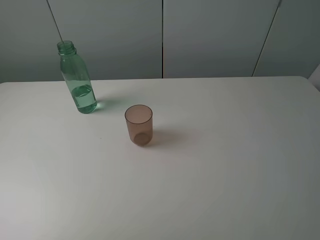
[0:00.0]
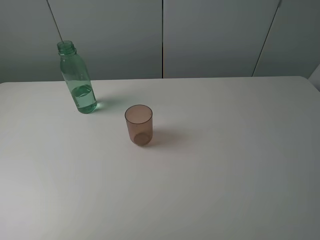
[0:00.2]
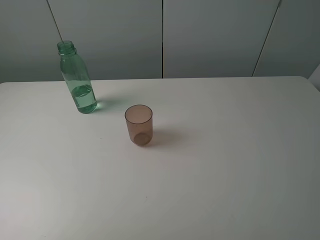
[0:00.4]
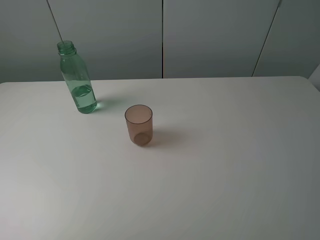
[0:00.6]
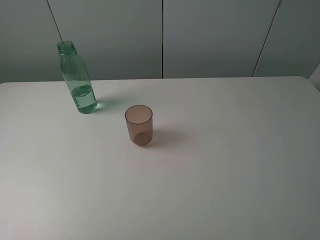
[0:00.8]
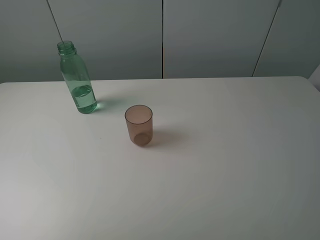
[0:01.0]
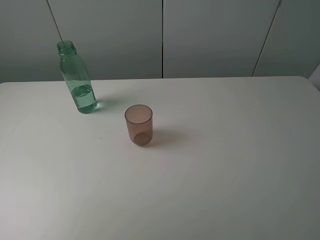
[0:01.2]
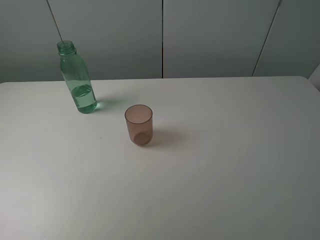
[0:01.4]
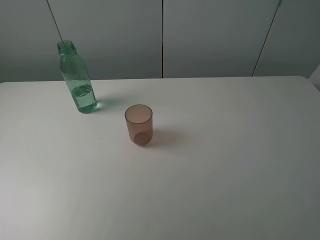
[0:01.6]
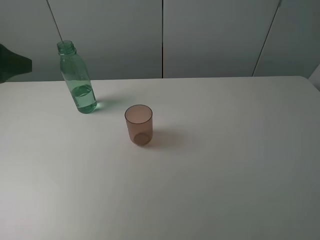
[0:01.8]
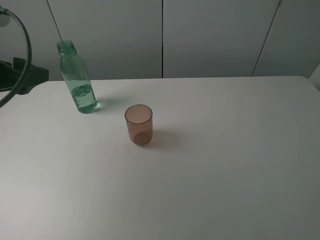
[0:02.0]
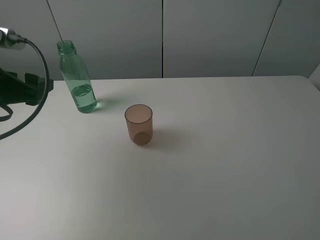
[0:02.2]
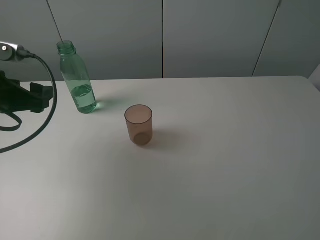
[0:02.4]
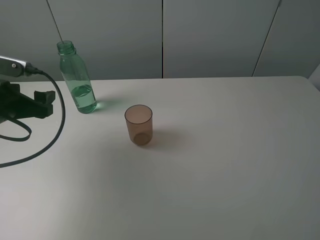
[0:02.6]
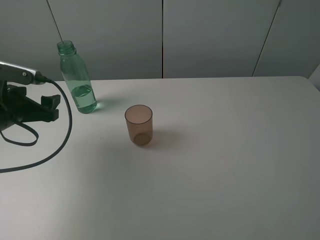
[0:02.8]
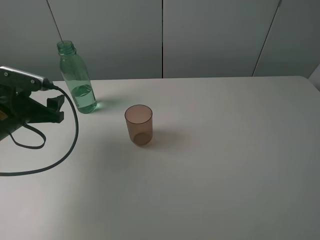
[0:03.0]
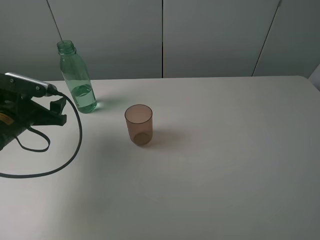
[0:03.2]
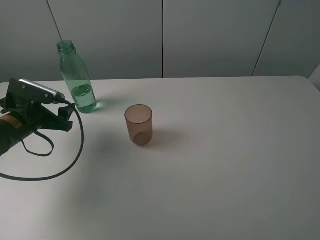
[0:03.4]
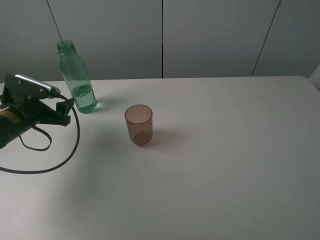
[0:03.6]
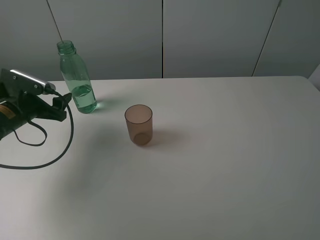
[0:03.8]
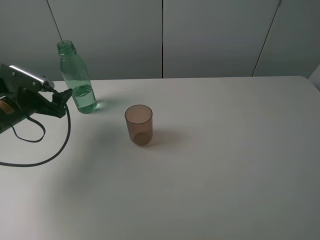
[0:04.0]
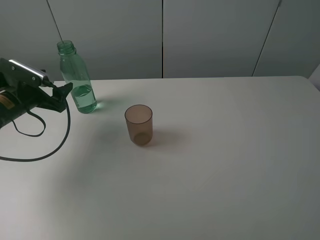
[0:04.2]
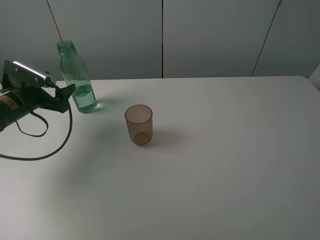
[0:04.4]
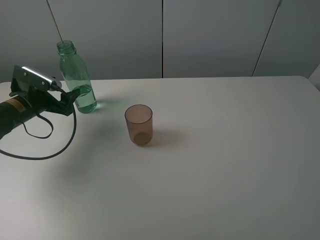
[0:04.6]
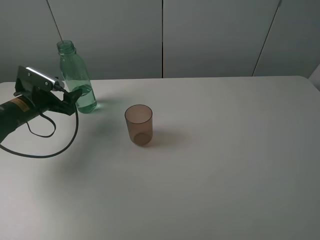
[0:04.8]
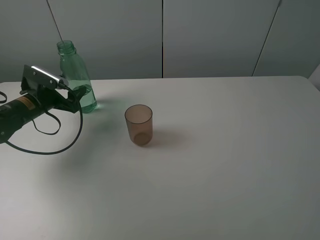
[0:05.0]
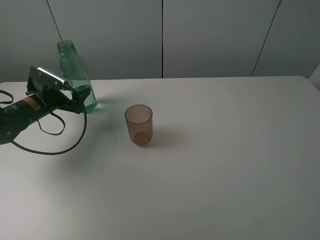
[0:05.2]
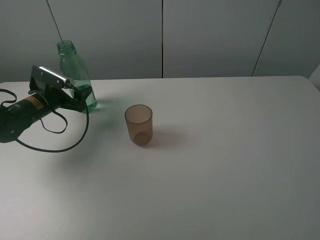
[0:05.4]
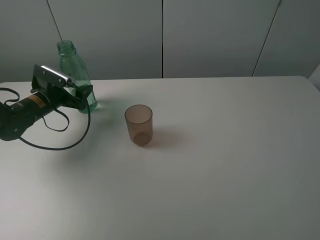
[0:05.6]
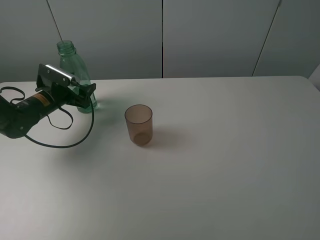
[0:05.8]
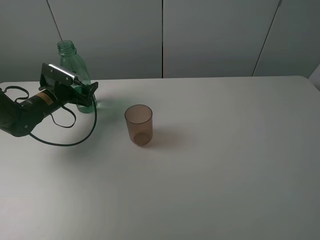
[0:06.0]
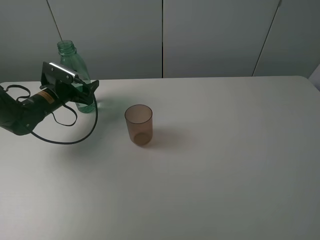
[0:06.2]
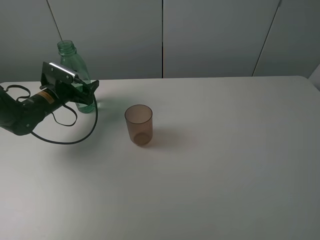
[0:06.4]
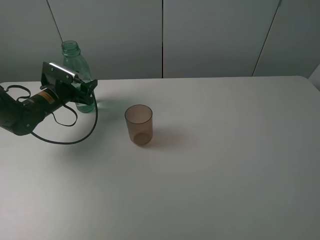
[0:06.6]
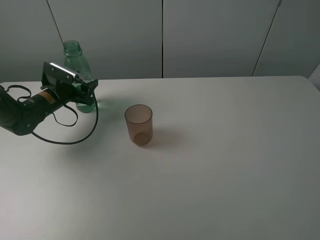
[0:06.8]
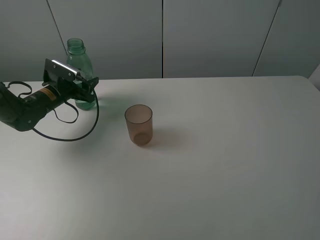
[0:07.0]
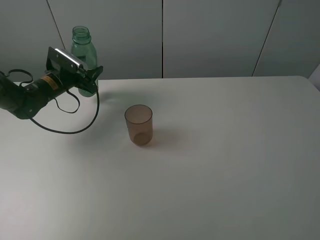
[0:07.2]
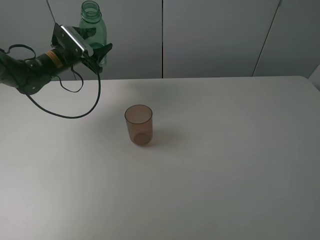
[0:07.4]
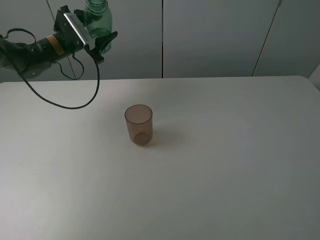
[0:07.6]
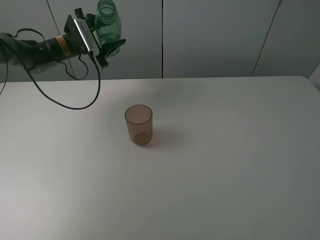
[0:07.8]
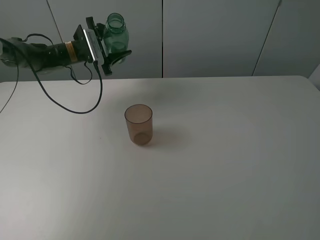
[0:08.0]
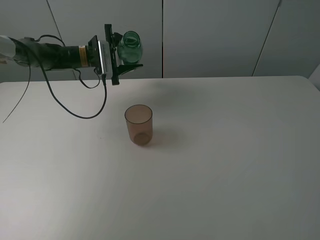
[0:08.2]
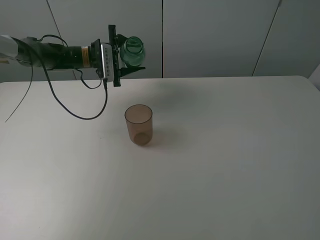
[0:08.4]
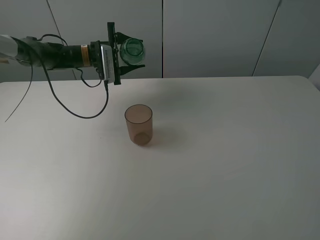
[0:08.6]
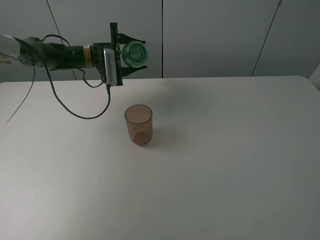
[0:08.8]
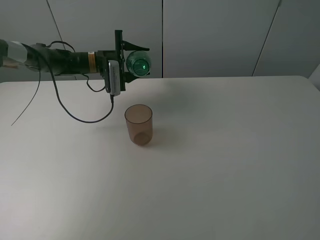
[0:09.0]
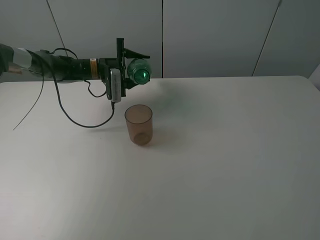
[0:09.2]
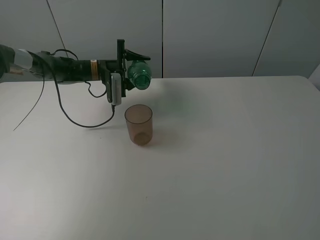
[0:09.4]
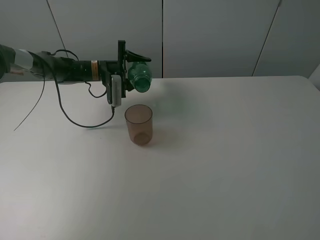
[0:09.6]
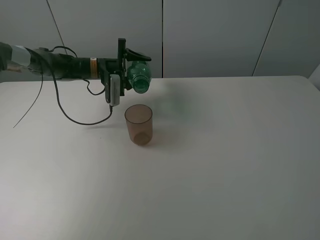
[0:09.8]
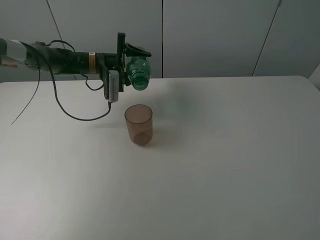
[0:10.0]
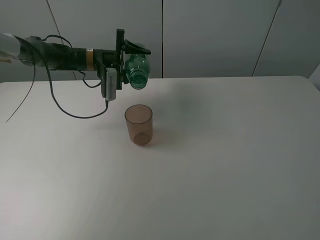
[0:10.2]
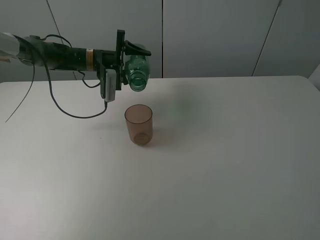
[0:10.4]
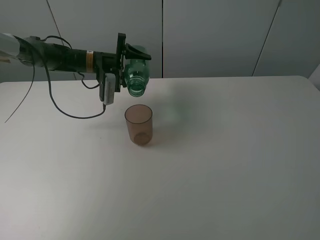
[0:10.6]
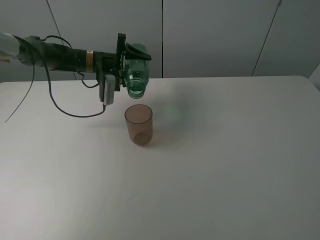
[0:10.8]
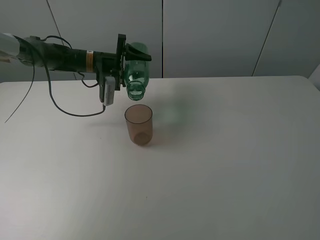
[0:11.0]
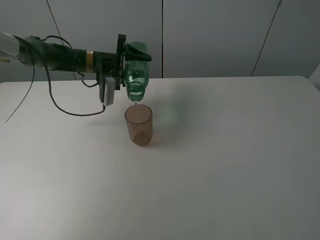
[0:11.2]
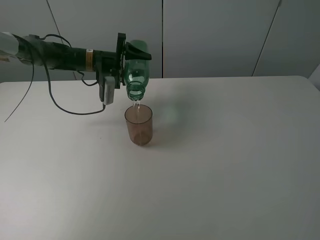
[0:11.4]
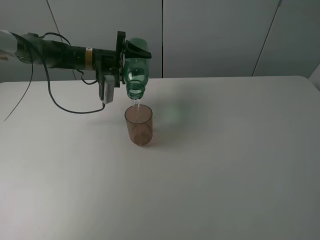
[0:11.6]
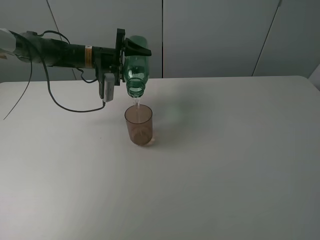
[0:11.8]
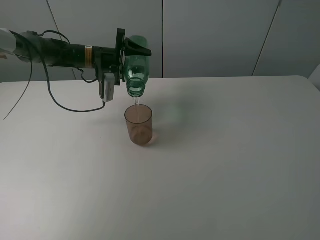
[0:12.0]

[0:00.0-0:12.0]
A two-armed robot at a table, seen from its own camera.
Task of the whole recording: pick up the bottle filled with water and pour it into the pink cup.
Step, 0:00.0 to 0:06.6: Grasp the green bottle with the left gripper.
0:01.6 to 0:03.0: The left gripper goes roughly 20 cm downward and forward.
0:03.0 to 0:04.4: The left gripper shifts some 5 cm forward.
0:04.4 to 0:06.0: The left gripper moves forward, roughly 5 cm.
0:06.0 to 0:07.6: The left gripper heads upward and forward, covering roughly 15 cm, and closes its fingers.
0:07.6 to 0:09.0: The left gripper shifts some 10 cm to the right and downward.
0:09.0 to 0:10.4: The grippers stay close to where they were, moving slightly.
0:10.4 to 0:12.0: The grippers move only a little.

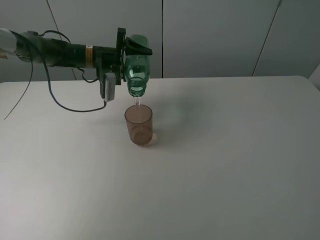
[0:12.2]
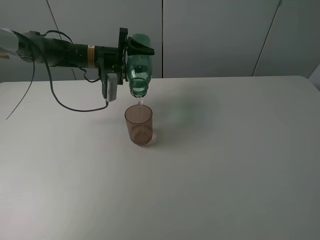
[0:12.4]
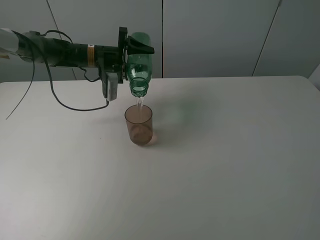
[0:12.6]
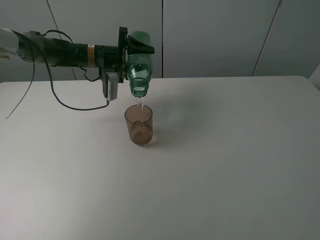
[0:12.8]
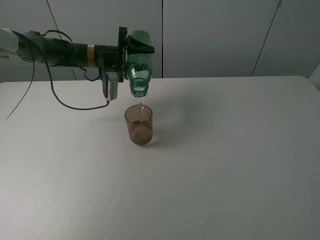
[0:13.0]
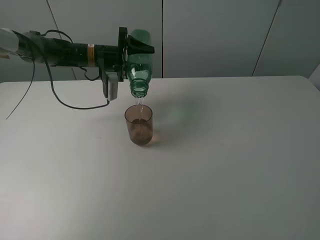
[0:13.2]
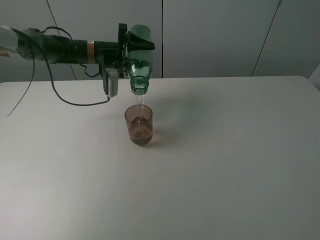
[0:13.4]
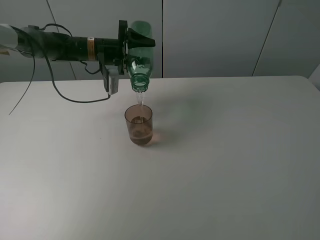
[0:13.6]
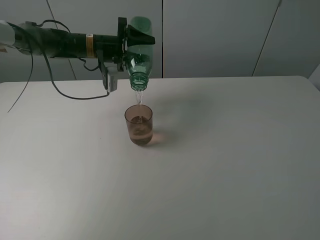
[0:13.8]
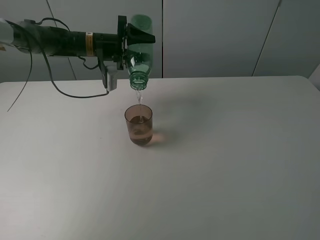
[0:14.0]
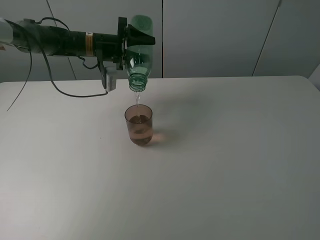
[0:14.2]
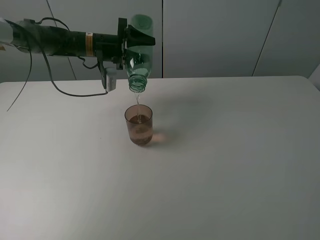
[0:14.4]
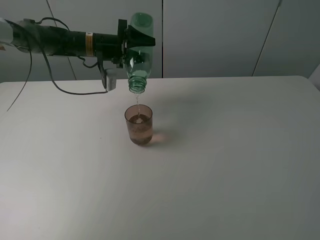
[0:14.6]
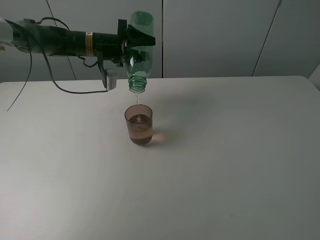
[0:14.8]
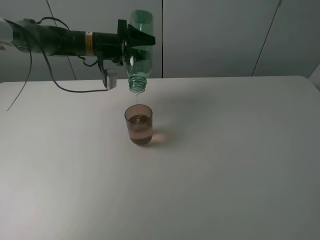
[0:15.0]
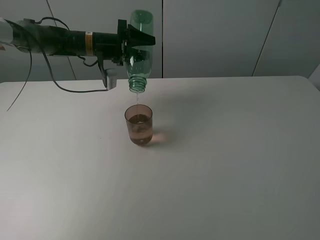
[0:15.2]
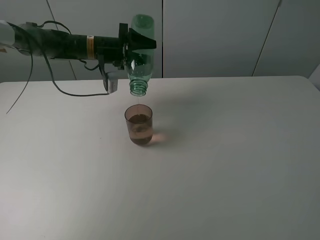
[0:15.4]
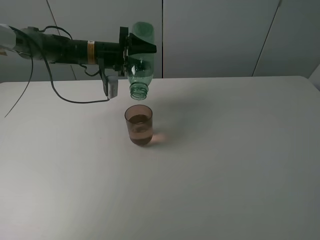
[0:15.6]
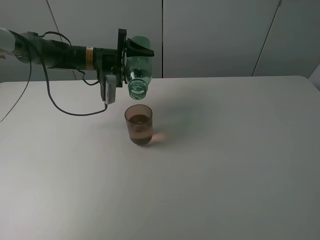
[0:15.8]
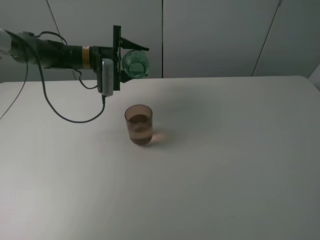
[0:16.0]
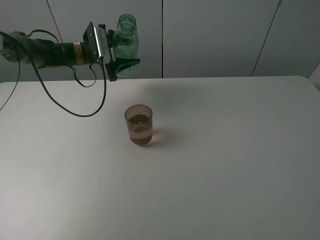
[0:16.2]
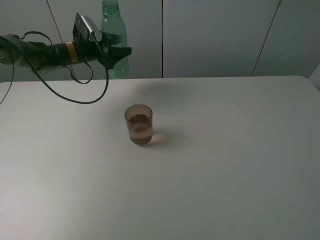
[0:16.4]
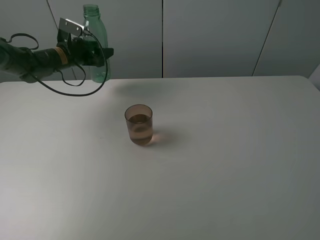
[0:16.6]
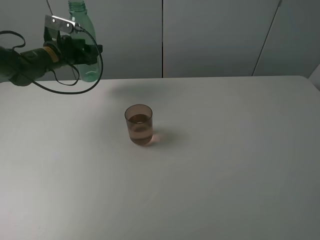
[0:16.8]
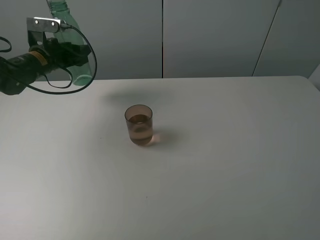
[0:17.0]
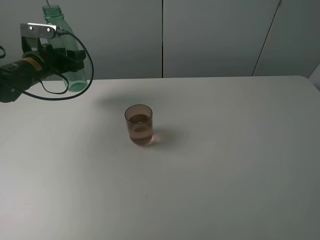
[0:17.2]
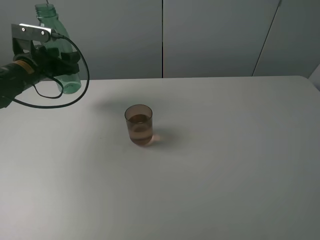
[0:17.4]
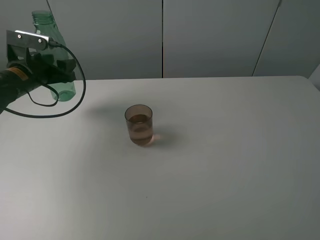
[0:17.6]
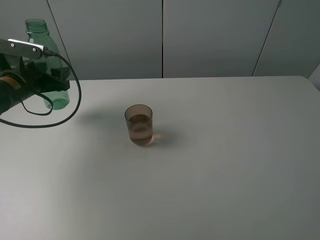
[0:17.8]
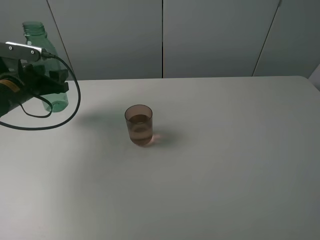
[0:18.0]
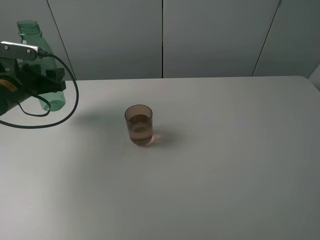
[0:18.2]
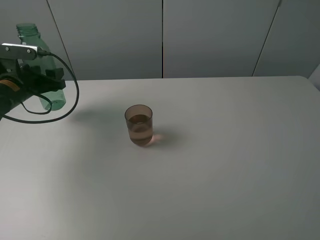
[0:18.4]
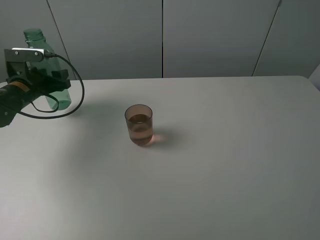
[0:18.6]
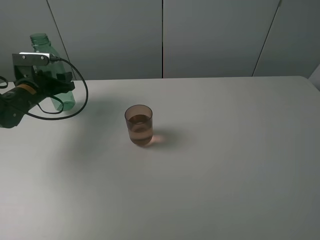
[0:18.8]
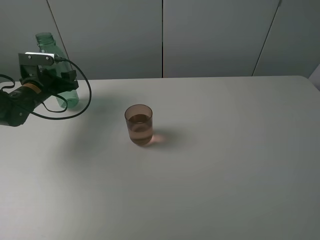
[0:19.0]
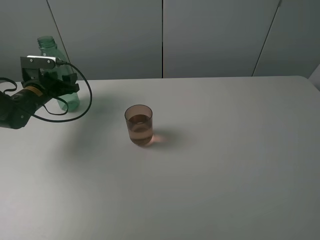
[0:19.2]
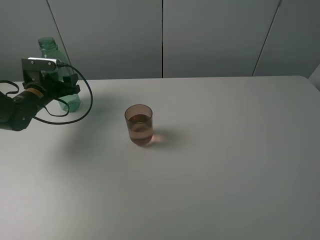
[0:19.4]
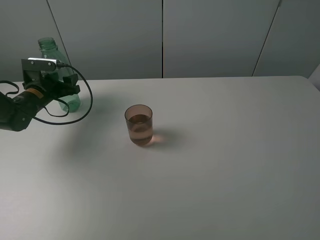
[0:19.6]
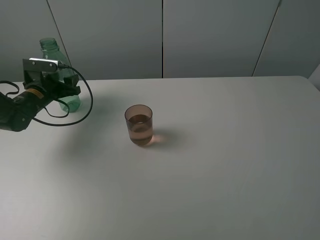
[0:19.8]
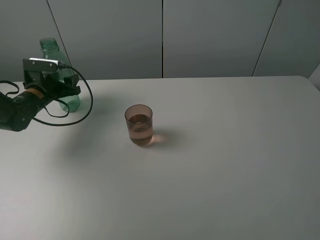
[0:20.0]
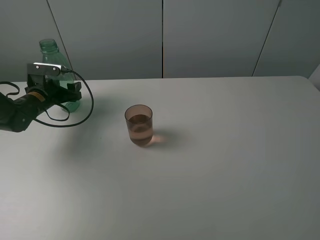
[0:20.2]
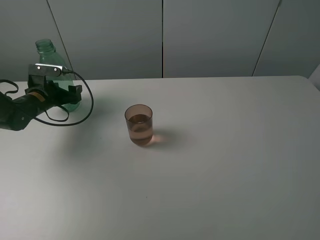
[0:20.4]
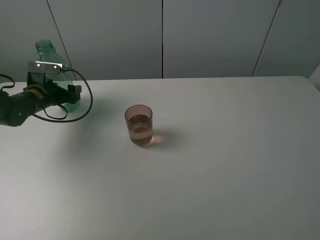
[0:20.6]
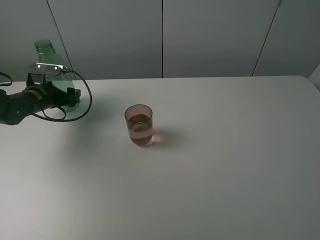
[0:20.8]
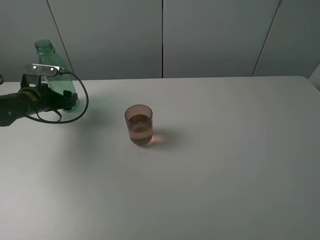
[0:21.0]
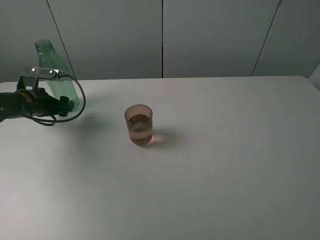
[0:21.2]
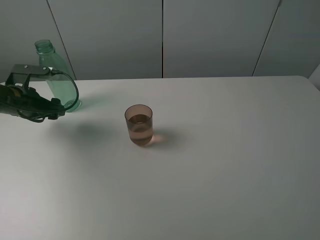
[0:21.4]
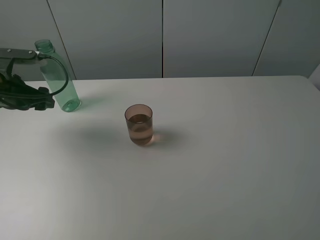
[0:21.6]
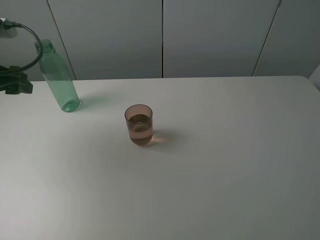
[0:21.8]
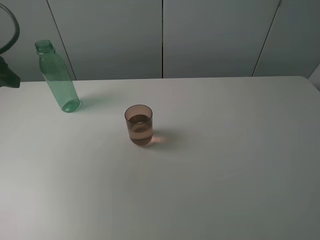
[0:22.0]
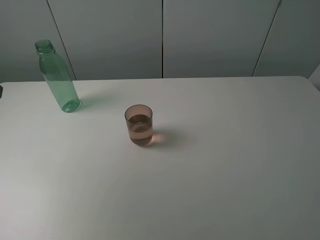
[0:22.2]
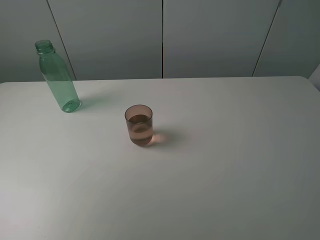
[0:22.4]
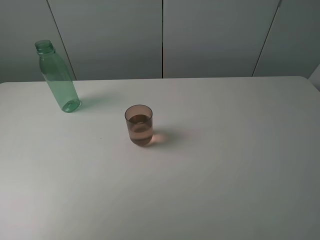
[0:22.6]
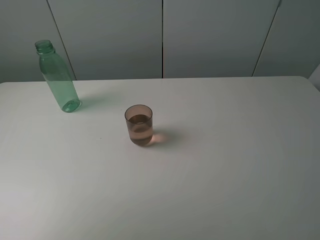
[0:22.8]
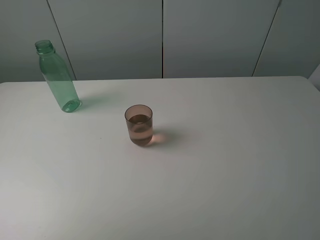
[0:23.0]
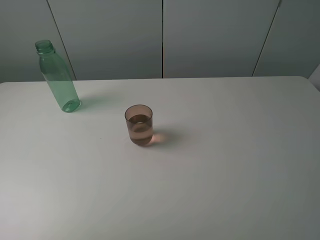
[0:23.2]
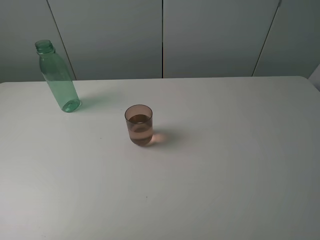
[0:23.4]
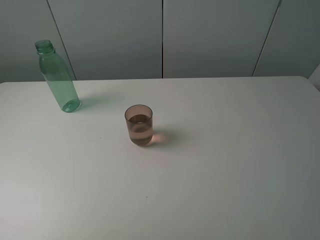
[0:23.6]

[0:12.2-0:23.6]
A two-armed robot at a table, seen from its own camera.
Task of the whole recording: pick up the bottle filled with water and pour it into the pink cup.
Step, 0:12.2 to 0:15.6: Pour water from green bottle to pink cup with the left gripper.
Step, 0:15.8 to 0:20.8: Place the green bottle with the left gripper.
0:12.2 to 0:13.6: There are only small adjustments of the grippers.
0:13.6 to 0:15.0: The grippers move only a little.
0:15.0 to 0:16.4: The left gripper shifts approximately 5 cm to the left.
0:16.4 to 0:17.8: The left gripper goes approximately 20 cm backward and to the left.
0:17.8 to 0:19.4: The left gripper travels downward and forward by some 10 cm.
0:19.4 to 0:20.8: The left gripper opens.
0:20.8 to 0:22.2: The left gripper shifts some 30 cm upward and backward.
0:22.2 to 0:23.6: The left gripper goes some 20 cm backward.
